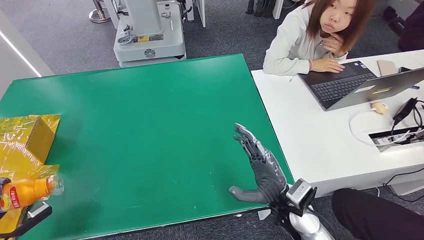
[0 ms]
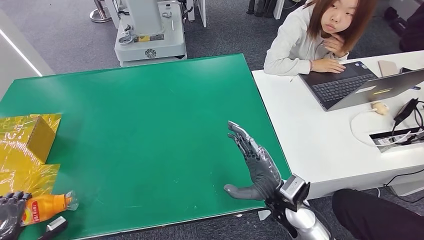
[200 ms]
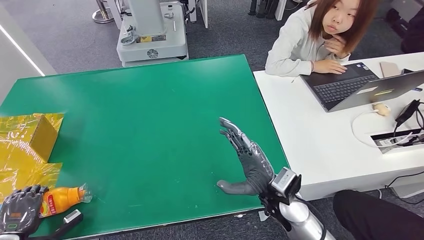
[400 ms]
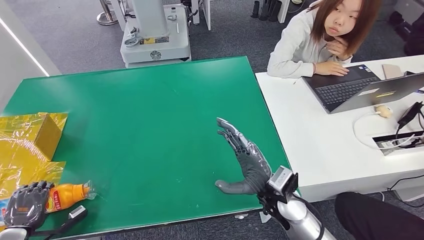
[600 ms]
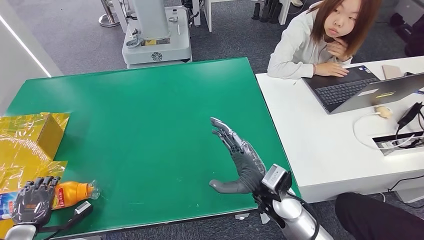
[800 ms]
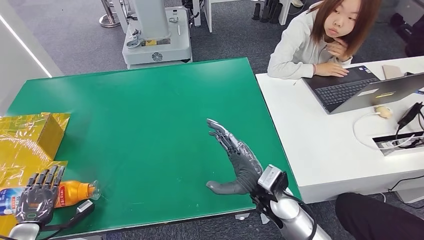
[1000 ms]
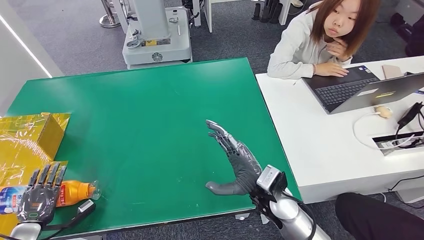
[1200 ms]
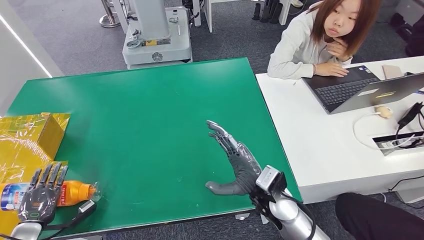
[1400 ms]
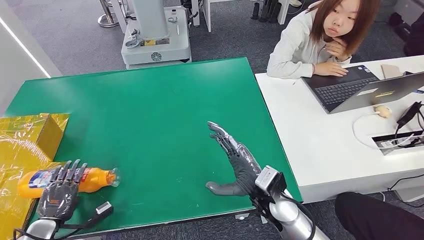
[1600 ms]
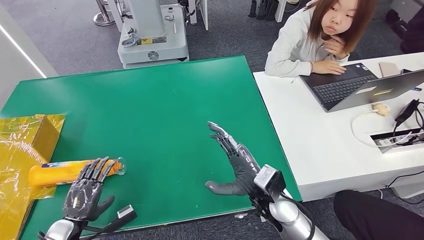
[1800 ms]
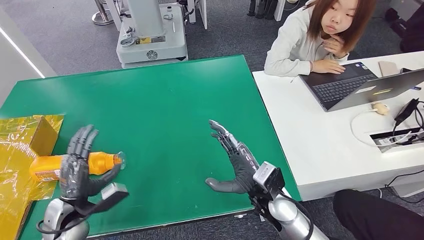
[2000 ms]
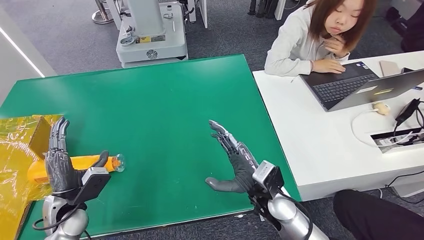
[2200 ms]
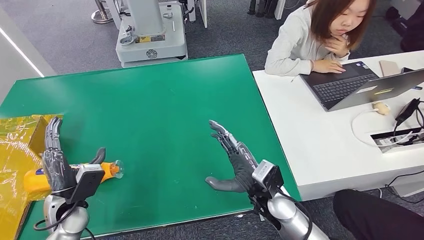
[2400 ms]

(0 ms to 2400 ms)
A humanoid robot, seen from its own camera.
Step, 0 ms - 2400 ms: Turn the bottle to the front side.

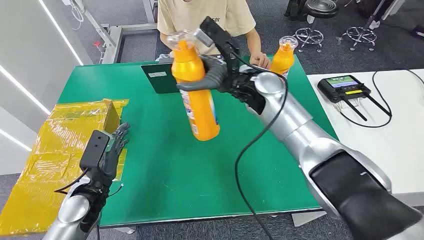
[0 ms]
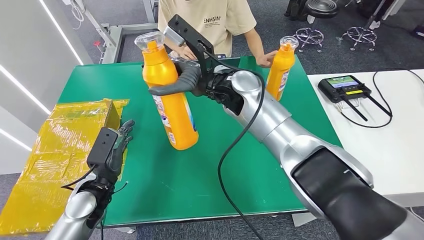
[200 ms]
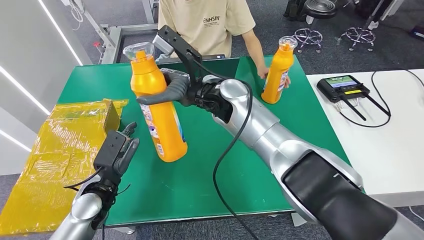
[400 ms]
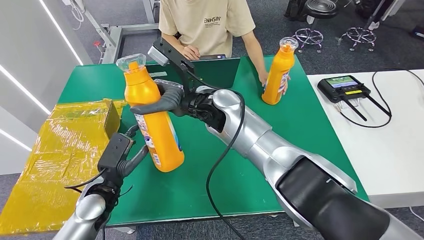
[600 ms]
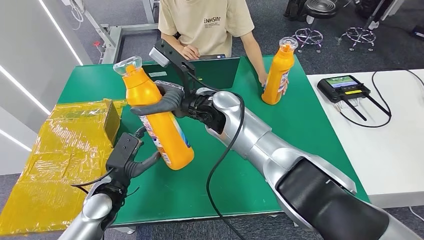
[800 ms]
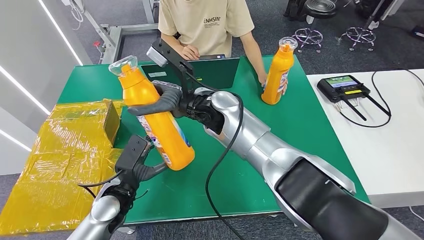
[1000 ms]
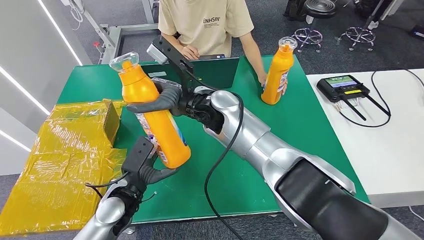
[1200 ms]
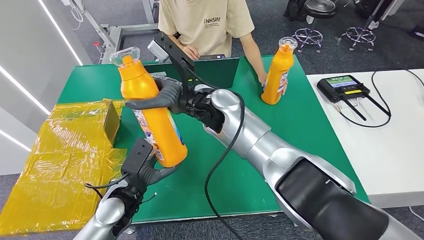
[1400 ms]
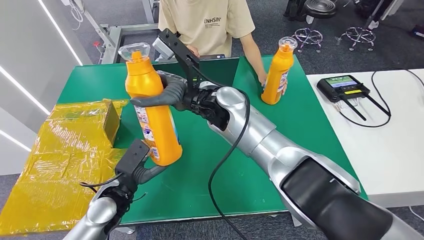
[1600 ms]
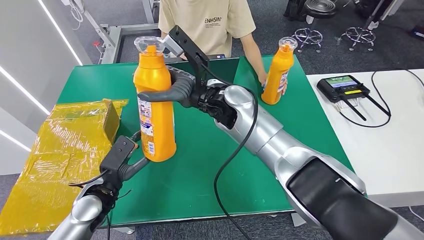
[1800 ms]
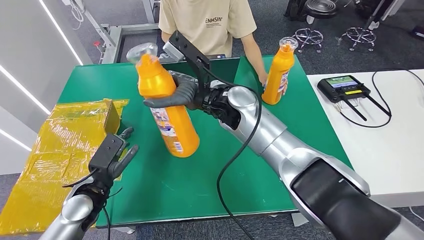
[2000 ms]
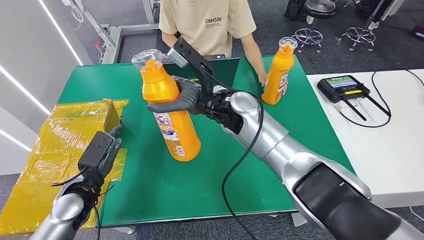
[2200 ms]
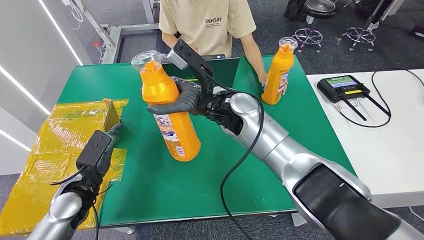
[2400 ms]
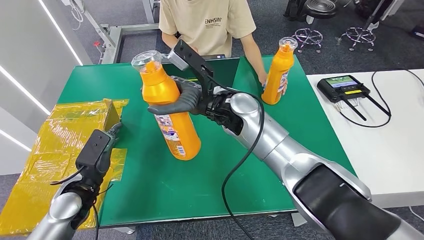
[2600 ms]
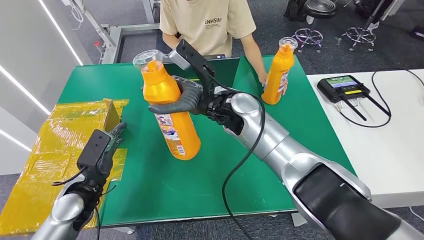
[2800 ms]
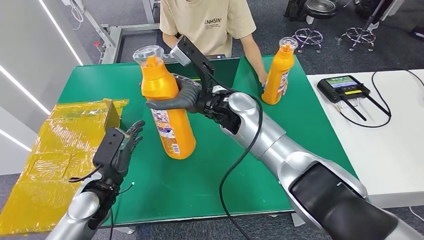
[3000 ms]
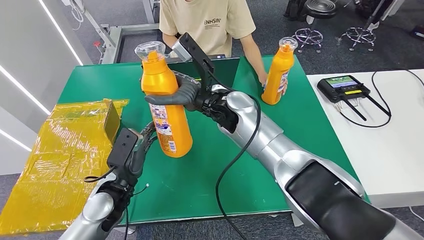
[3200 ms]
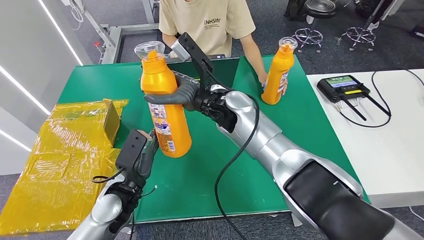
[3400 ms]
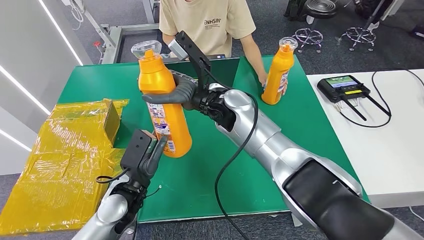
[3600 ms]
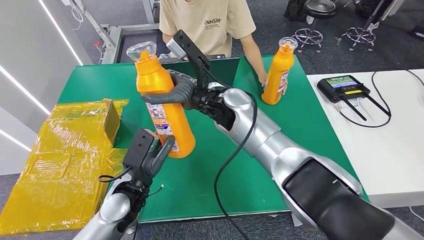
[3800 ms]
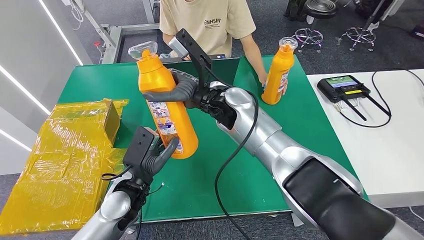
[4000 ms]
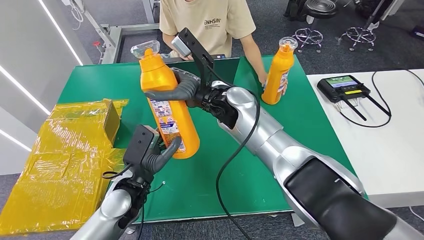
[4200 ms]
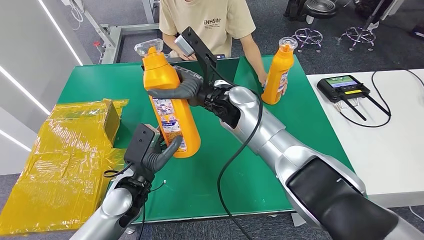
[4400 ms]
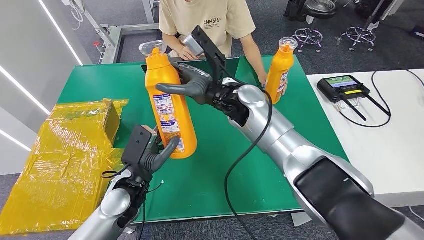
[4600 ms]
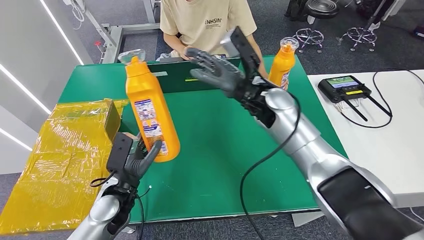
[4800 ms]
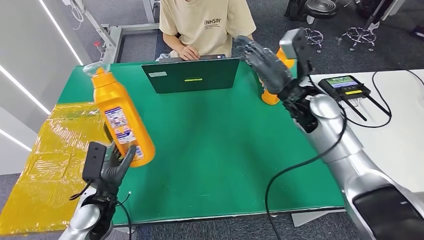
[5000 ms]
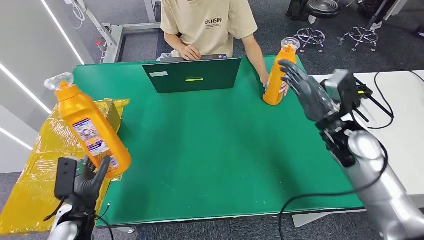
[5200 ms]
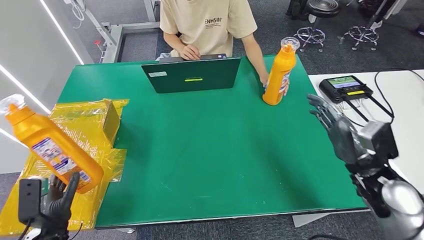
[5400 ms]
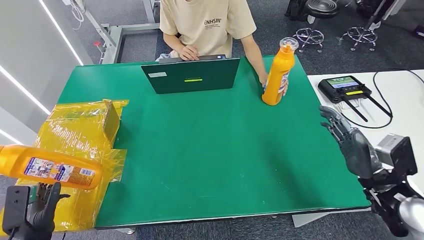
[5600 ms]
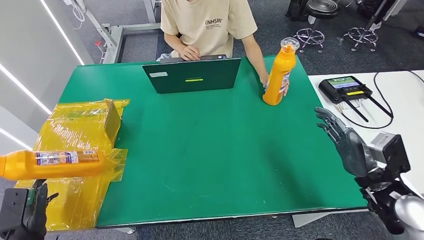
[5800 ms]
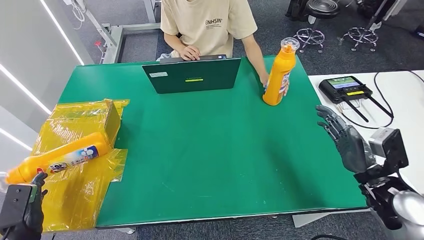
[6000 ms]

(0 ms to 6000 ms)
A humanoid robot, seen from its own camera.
Step, 0 ms - 2400 ms: Pick up the bottle from the table.
Step, 2600 ms - 6000 ms: Turn the bottle to the front side.
3000 ms - 4400 ms: The left hand heads to the right, covering about 10 cm.
